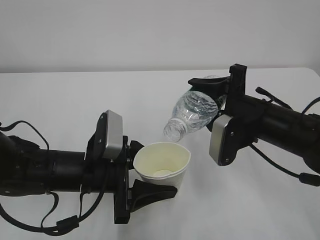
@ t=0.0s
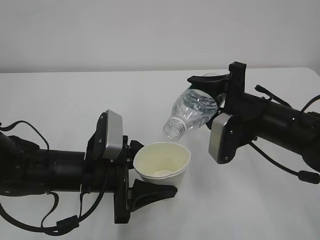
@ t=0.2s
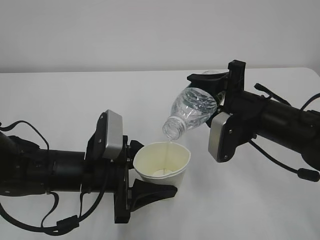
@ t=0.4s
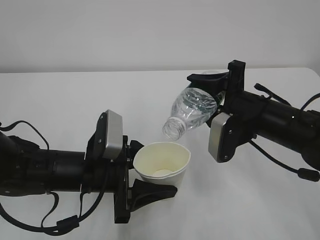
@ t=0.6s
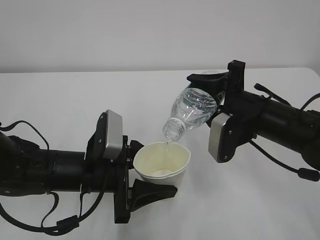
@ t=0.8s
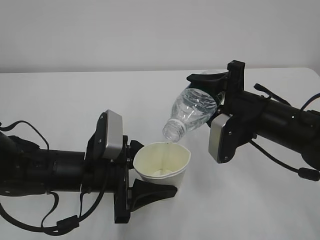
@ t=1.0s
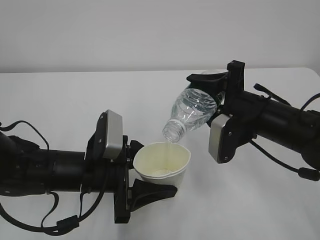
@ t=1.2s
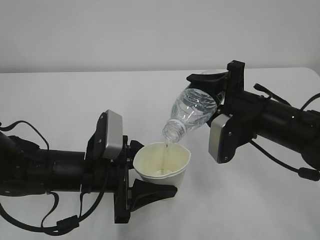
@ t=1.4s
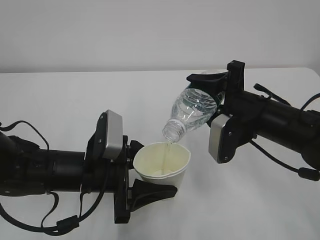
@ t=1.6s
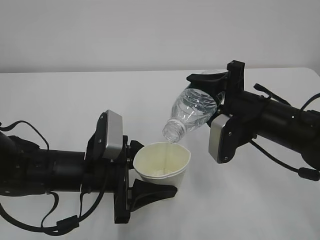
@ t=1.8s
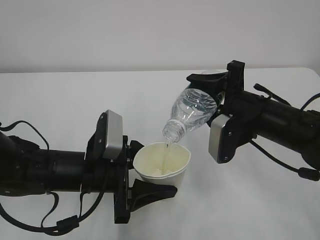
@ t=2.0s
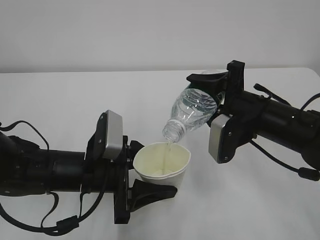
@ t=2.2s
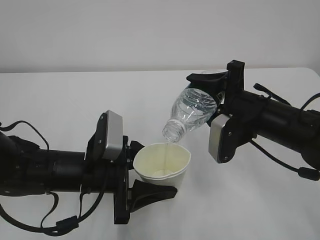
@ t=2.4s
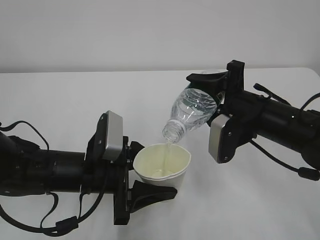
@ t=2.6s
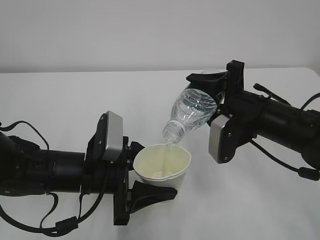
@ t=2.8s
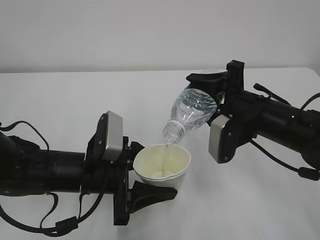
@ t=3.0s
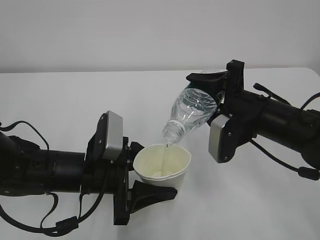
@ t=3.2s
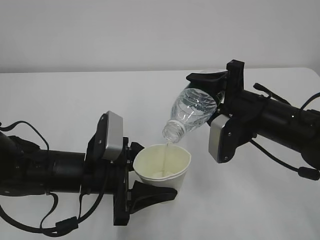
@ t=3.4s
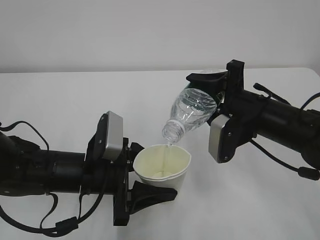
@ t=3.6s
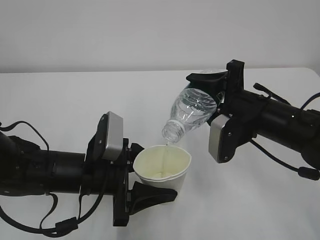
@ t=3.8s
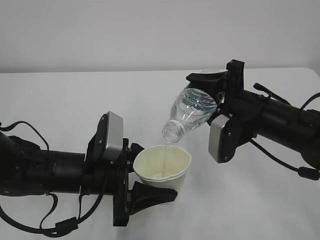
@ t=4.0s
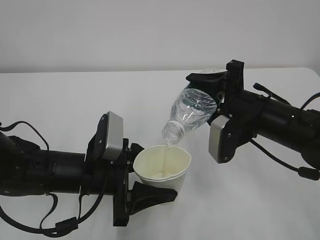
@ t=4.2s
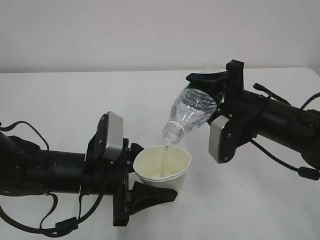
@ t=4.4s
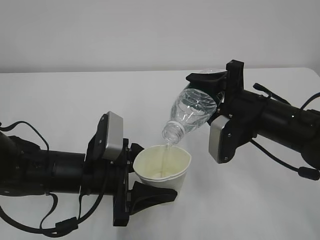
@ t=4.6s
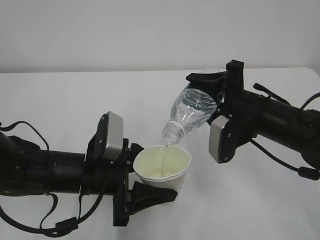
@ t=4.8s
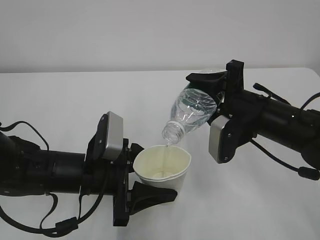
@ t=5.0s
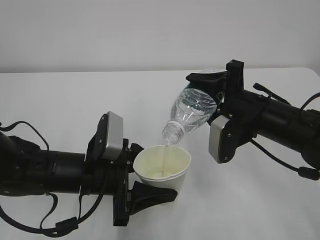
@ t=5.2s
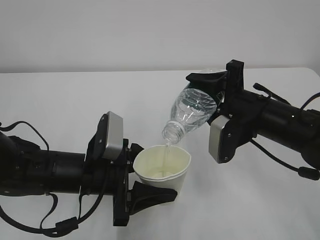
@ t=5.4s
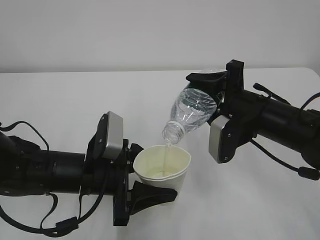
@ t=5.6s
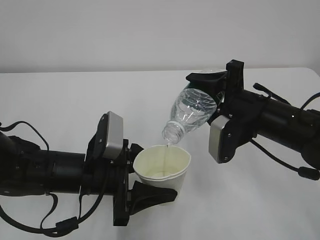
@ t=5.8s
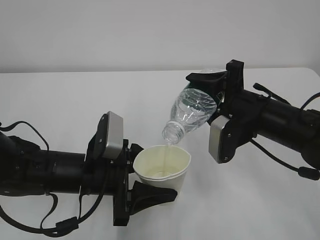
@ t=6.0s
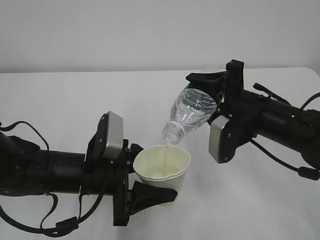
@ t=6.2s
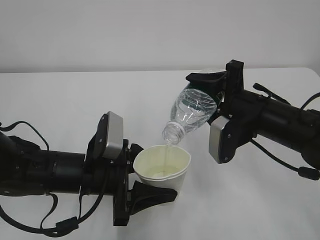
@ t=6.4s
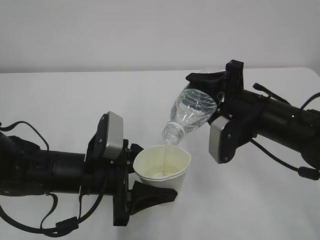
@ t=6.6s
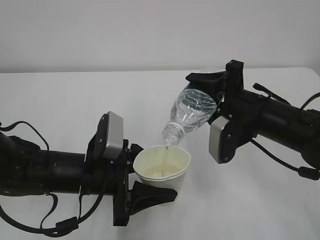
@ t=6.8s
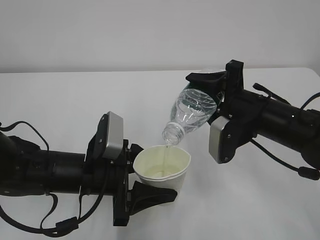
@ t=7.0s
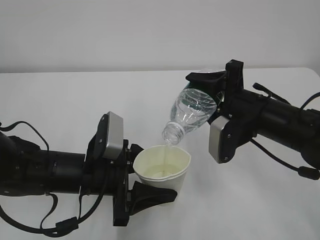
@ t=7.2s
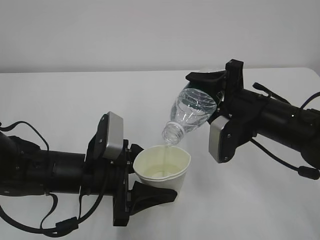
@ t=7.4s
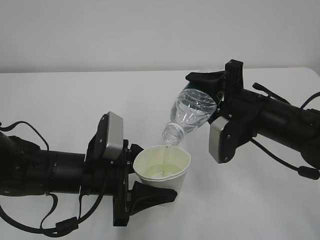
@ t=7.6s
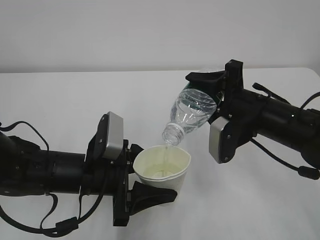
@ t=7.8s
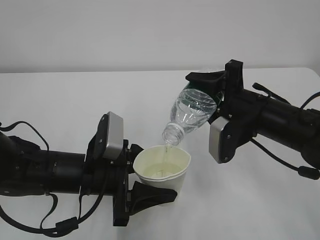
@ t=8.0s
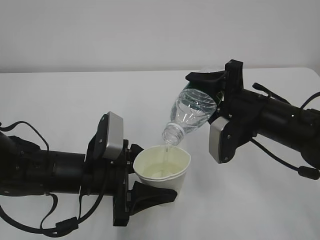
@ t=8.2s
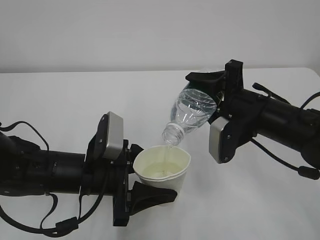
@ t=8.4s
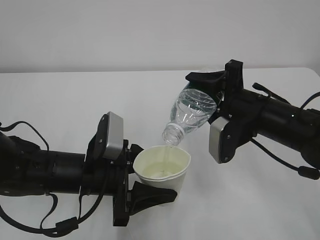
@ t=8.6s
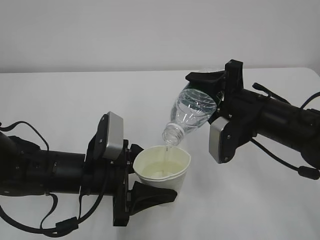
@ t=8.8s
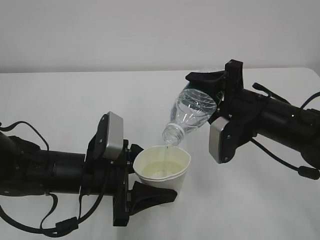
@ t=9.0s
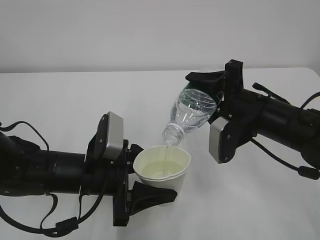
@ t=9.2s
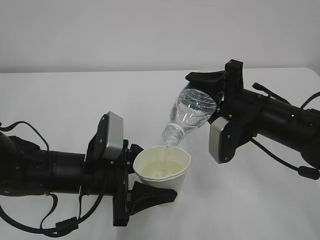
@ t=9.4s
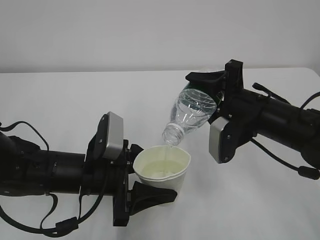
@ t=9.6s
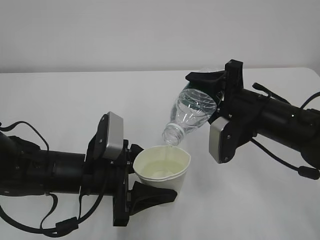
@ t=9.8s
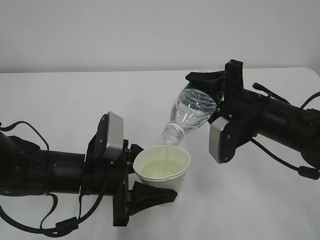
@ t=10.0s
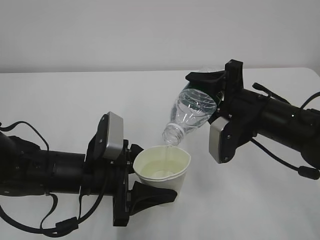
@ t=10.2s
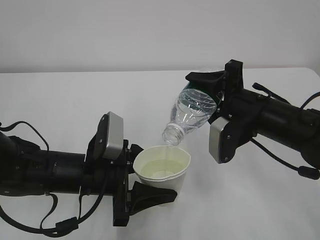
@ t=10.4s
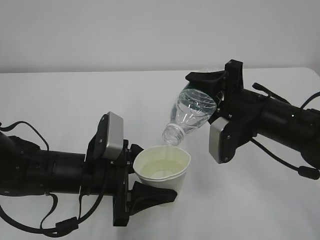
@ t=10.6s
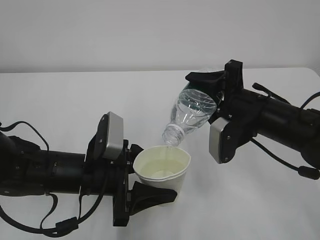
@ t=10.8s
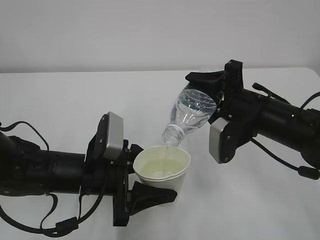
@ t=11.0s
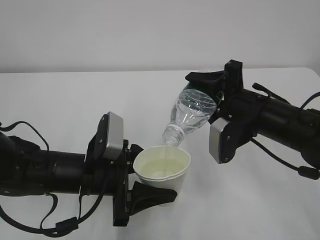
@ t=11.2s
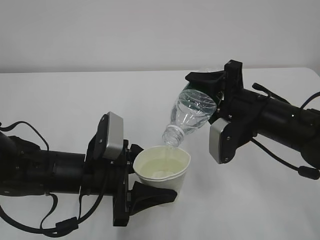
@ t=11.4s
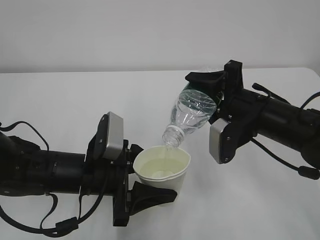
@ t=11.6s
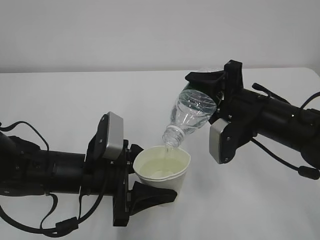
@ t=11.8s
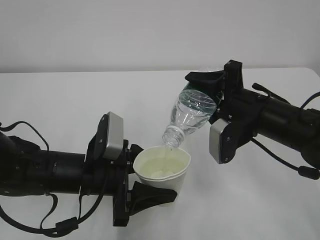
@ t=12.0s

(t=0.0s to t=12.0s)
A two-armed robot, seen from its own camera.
t=0.0s - t=1.6s: The grippers stay close to where they were, moving slightly.
t=1.6s - t=6.0s: Both grippers stay put.
t=6.0s - t=10.4s: Neither gripper changes place.
t=10.4s - t=12.0s: Both grippers stay about where they are.

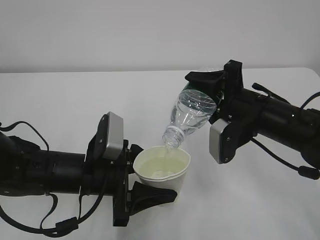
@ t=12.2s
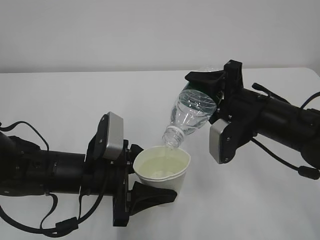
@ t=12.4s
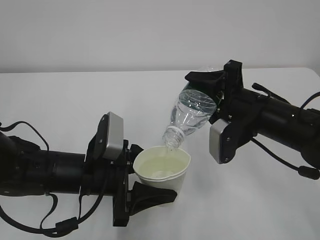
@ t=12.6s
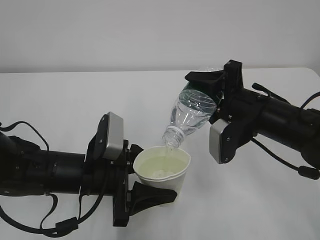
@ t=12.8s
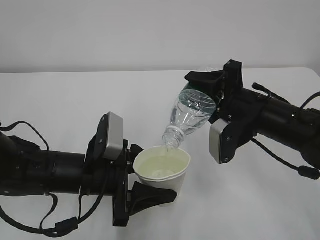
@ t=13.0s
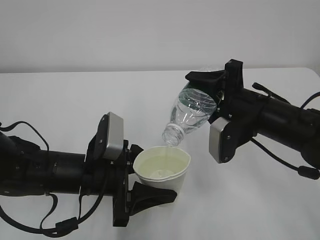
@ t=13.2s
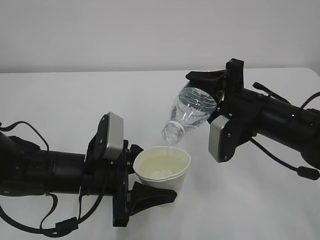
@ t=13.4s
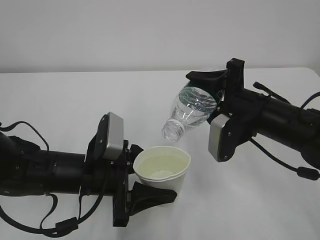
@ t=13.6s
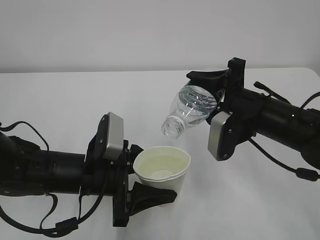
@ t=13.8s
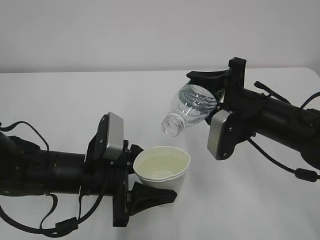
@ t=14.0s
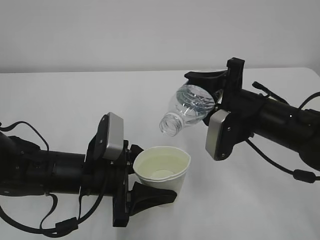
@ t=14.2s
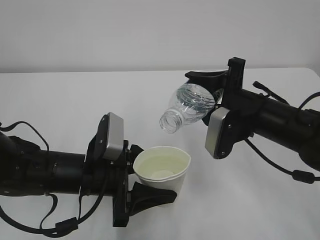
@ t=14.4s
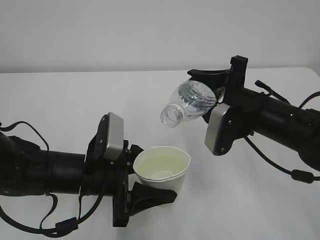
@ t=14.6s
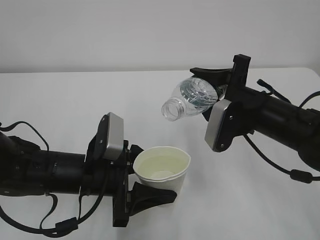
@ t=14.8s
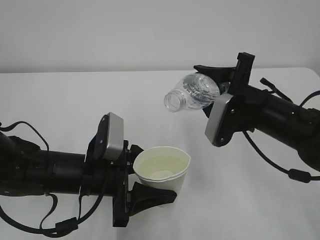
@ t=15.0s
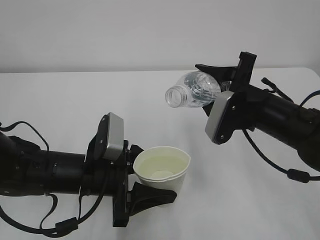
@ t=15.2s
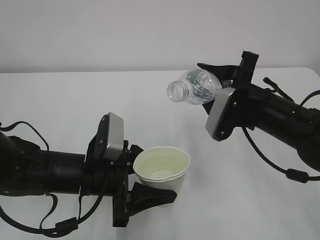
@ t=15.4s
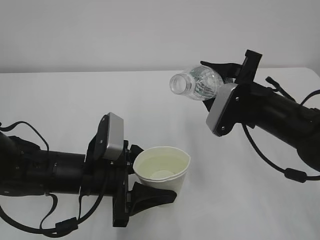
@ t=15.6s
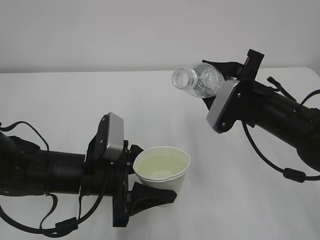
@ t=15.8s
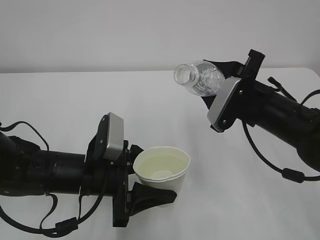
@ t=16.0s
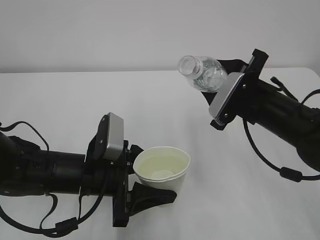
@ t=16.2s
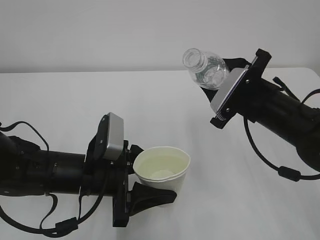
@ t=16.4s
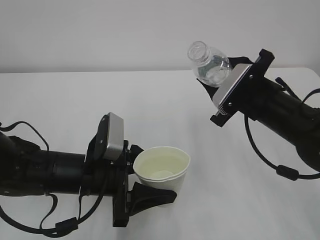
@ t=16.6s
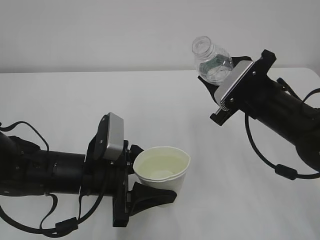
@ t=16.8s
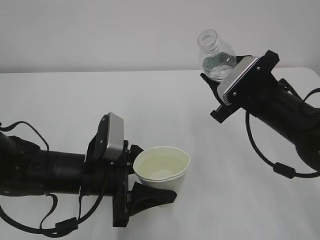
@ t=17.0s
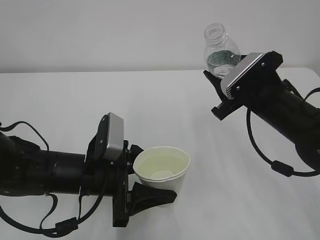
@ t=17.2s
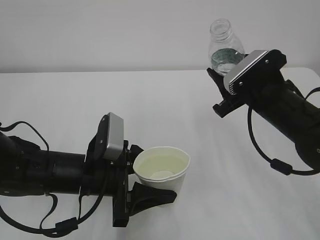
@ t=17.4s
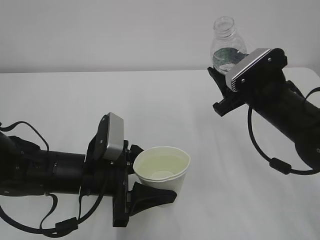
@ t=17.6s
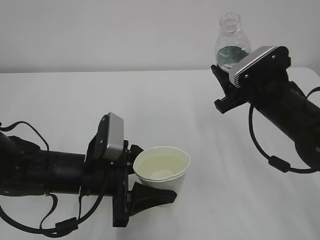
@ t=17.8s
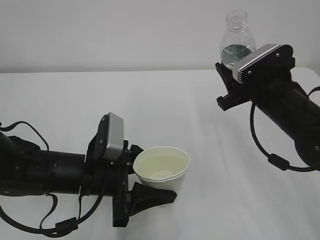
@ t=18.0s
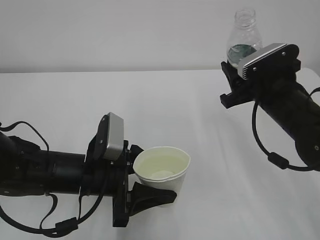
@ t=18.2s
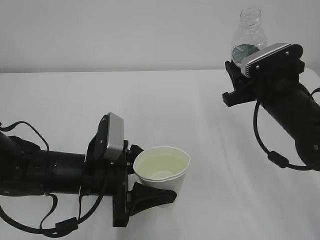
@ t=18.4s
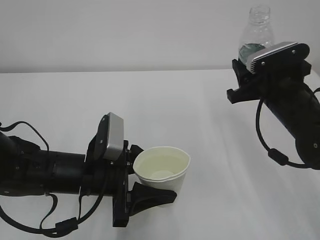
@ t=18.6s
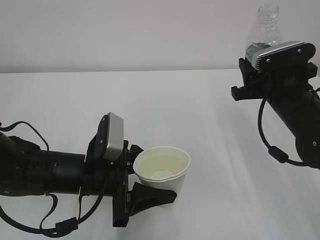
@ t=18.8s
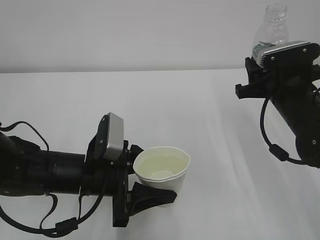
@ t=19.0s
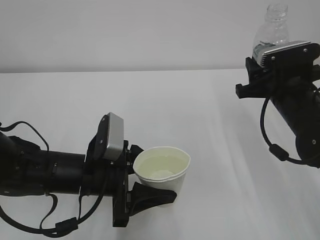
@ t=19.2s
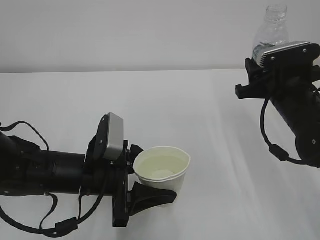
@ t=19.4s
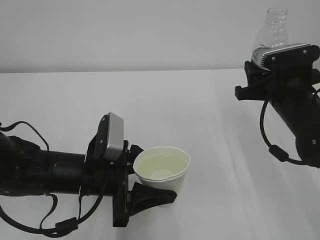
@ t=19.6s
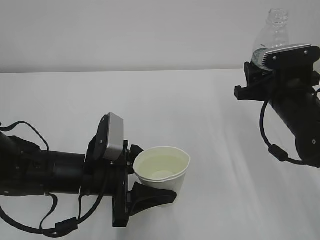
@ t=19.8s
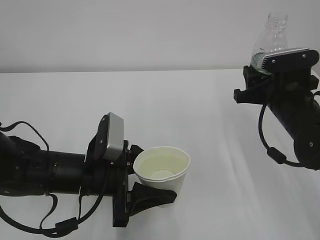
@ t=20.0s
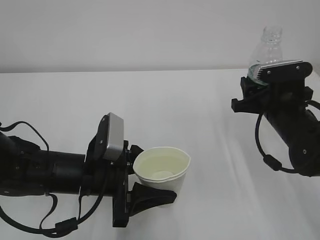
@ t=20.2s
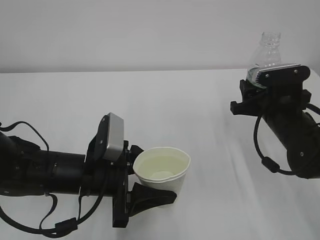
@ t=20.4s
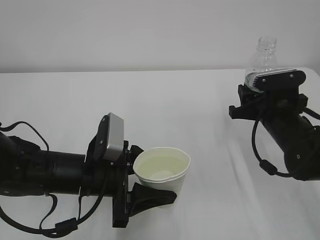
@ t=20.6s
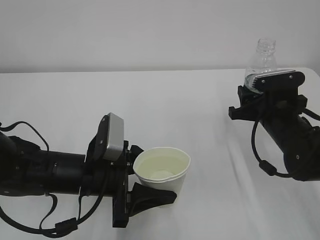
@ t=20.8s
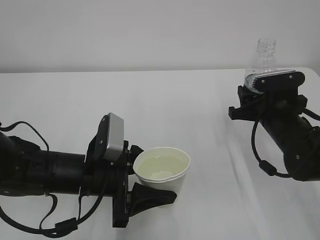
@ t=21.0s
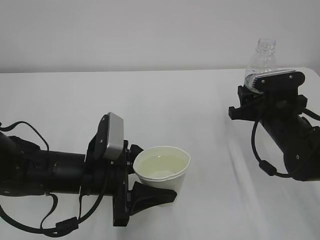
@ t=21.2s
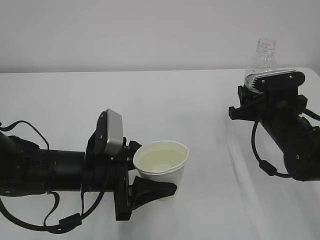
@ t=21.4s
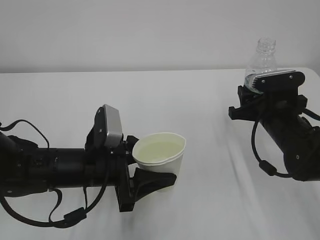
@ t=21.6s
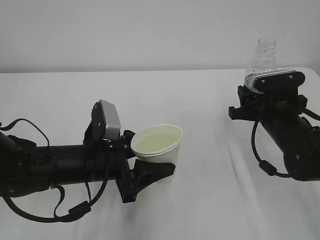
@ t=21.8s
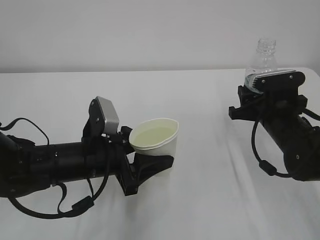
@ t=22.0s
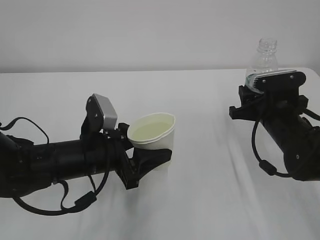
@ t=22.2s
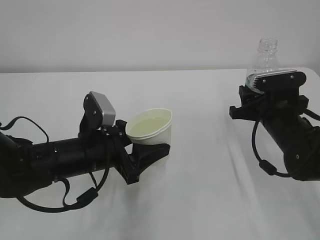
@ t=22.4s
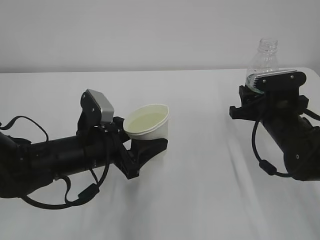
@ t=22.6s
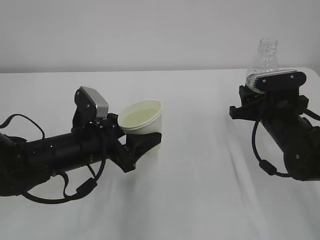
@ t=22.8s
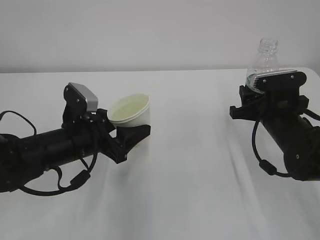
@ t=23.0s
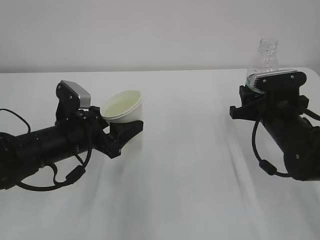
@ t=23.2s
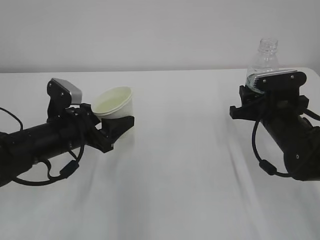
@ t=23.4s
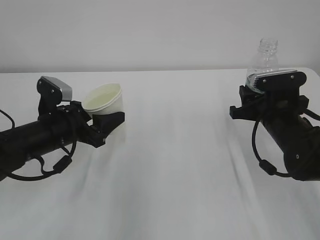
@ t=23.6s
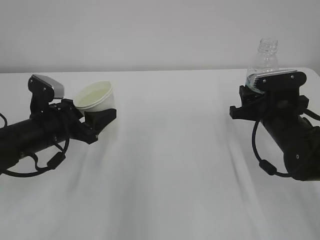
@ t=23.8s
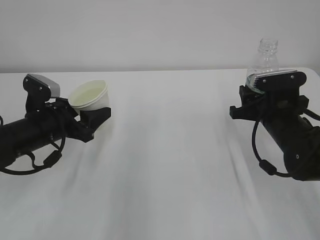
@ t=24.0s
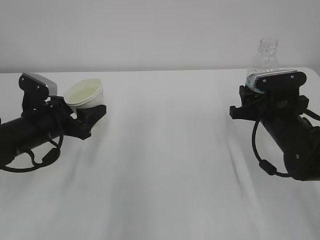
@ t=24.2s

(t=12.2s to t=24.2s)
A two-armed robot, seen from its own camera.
t=12.2s - t=13.8s: The grippers make only small movements.
t=13.8s - t=15.2s: The grippers move only a little.
t=18.2s - t=19.8s: The grippers make only small movements.
t=19.8s - t=21.2s: There are only small adjustments of the grippers.
t=22.6s - t=24.2s: The left gripper is displaced to the left and forward by approximately 10 cm.
